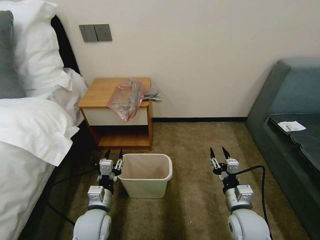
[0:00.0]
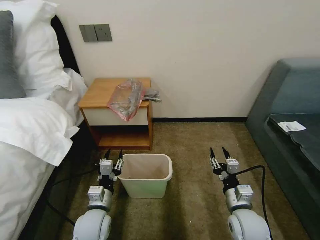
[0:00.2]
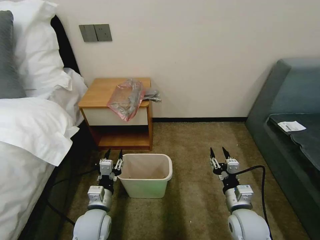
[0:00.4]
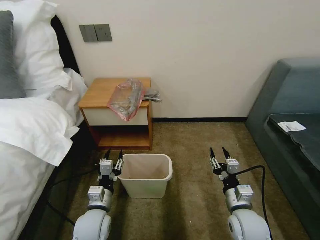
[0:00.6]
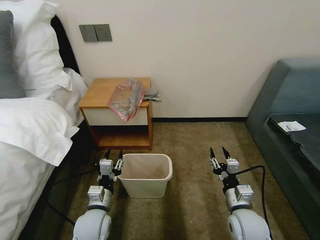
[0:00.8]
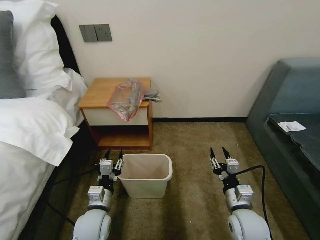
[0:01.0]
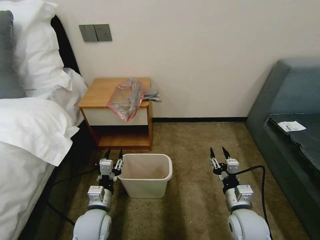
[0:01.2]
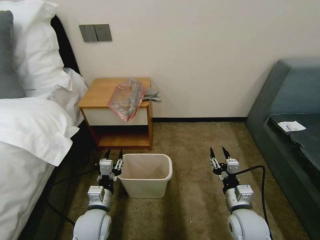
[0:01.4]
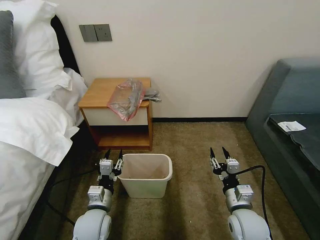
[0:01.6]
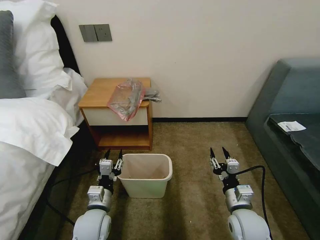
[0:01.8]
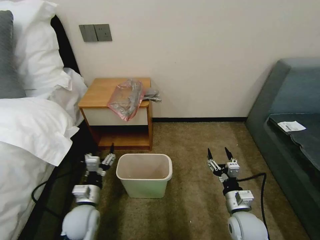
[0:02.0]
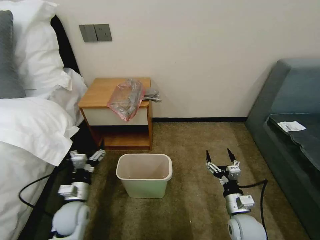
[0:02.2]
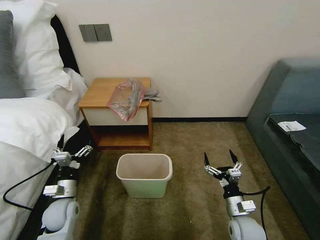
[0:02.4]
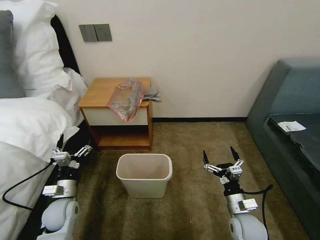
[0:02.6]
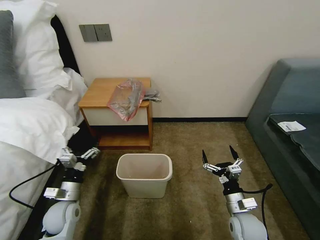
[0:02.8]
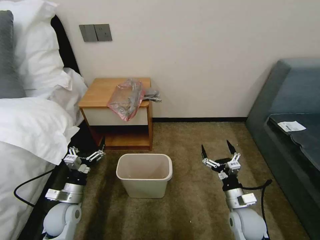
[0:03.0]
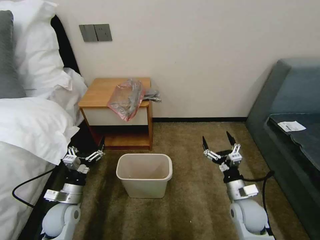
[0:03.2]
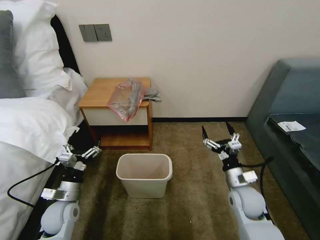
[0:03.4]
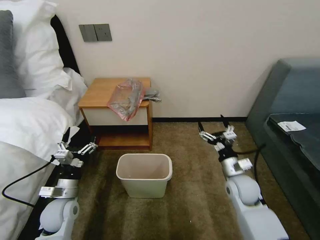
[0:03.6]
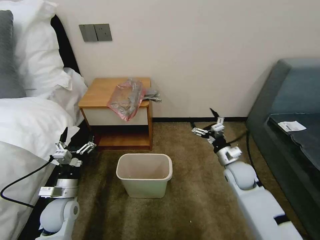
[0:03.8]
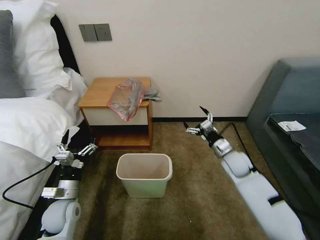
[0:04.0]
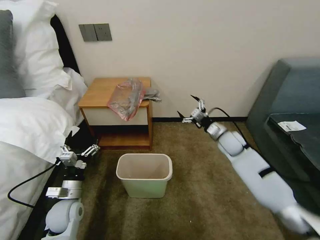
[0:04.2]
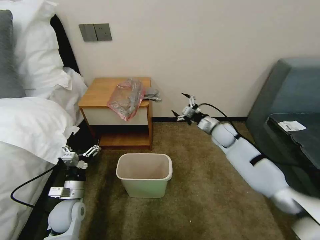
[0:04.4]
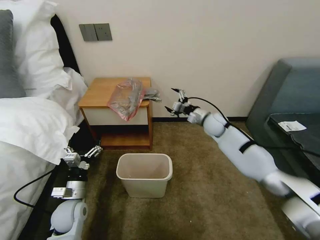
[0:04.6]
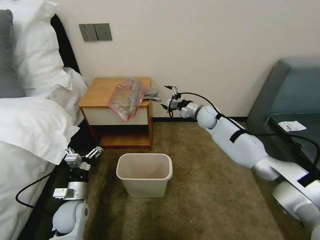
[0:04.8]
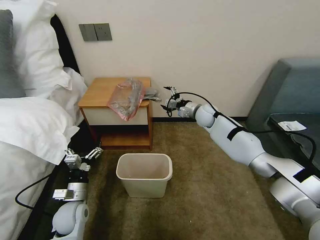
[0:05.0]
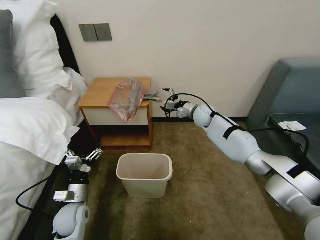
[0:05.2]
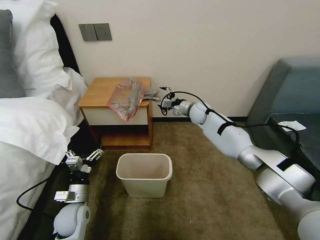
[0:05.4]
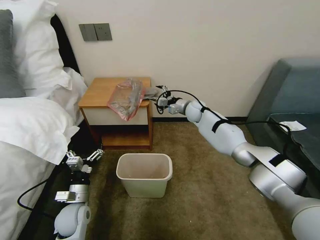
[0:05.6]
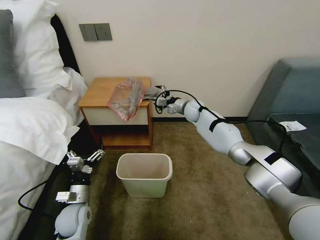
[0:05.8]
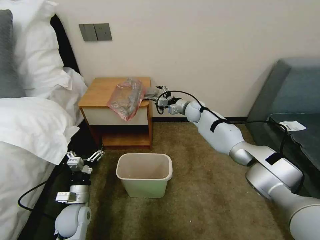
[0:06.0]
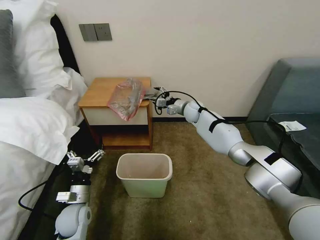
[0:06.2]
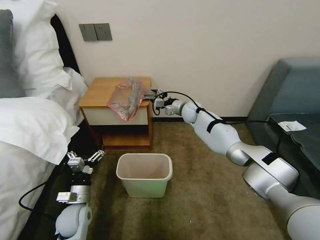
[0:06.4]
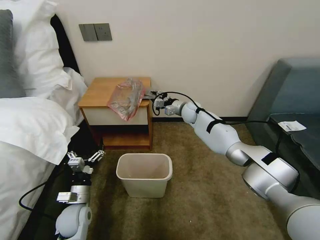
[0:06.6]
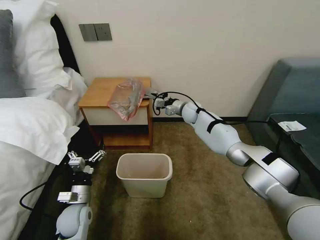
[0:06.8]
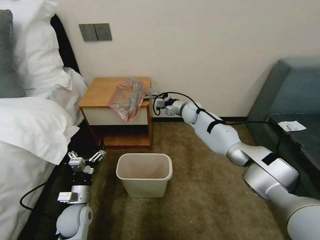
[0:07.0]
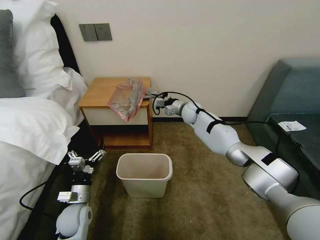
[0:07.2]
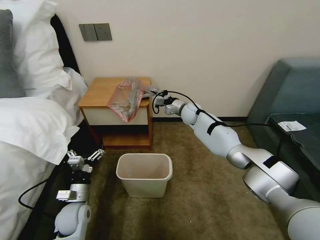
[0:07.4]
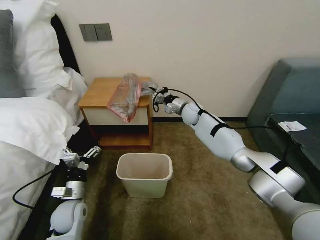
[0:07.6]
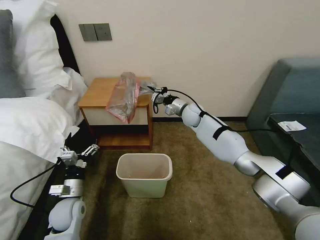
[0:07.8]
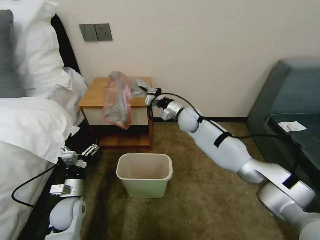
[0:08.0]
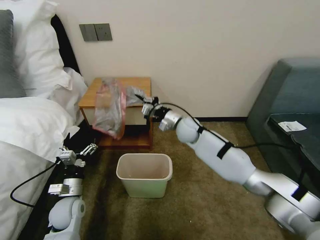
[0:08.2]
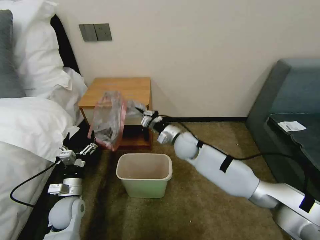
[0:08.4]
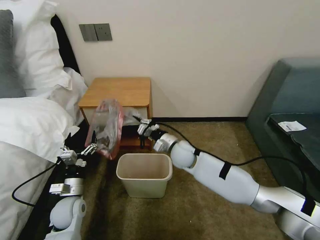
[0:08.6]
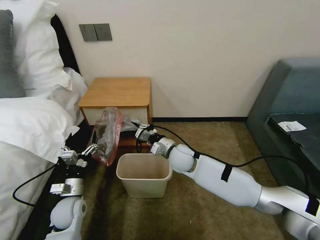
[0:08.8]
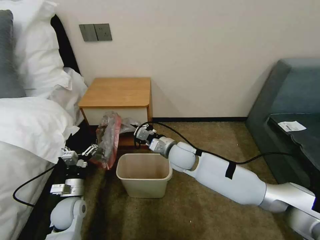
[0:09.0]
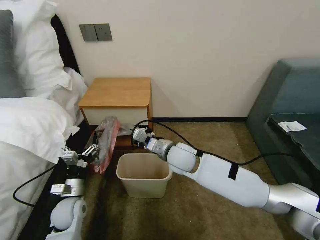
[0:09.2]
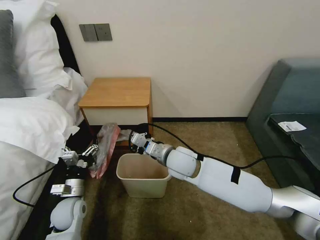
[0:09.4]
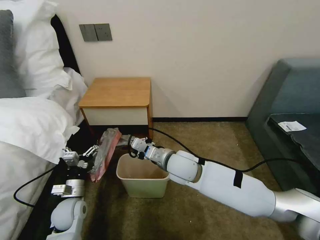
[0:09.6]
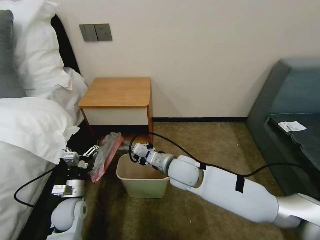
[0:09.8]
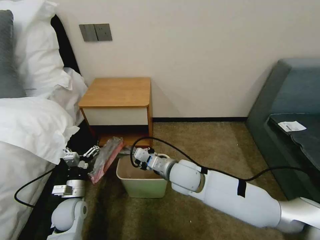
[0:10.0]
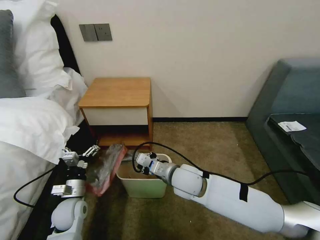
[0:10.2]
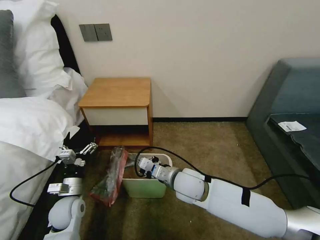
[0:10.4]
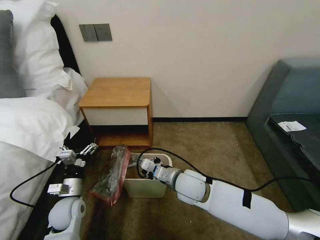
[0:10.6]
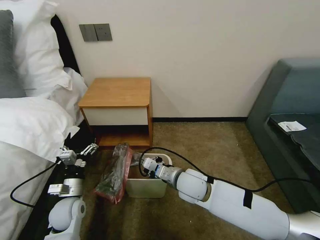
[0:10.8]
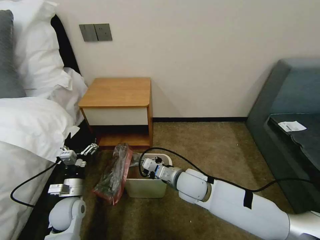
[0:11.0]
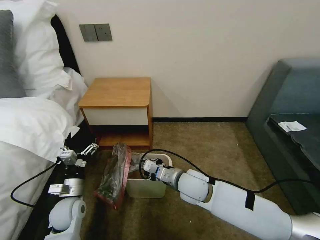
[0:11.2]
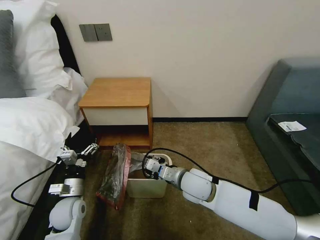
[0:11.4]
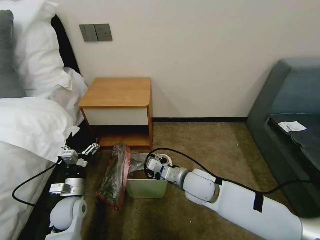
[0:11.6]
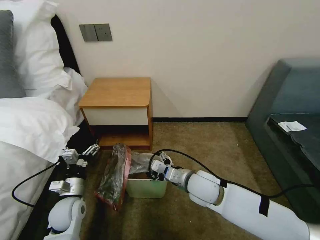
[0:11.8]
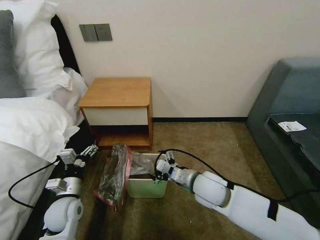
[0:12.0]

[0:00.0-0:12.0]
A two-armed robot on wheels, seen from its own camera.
Task of the whole recording: Pick up the garbage bag from the table and place it over the trash can.
0:01.6 to 0:03.0: The left gripper travels to the left by approximately 10 cm, and opens. Meanwhile the right gripper shifts by approximately 5 cm, and opens its fingers.
0:03.0 to 0:04.4: The right gripper moves forward, about 30 cm.
0:04.4 to 0:06.0: The right gripper heads forward and to the left, covering some 15 cm.
0:06.0 to 0:07.6: The right gripper closes its fingers.
0:07.6 to 0:09.0: The right gripper travels backward by about 20 cm.
0:09.0 to 0:10.4: The right gripper shifts roughly 10 cm backward.
0:10.4 to 0:12.0: The right gripper shifts about 5 cm to the right, and opens.

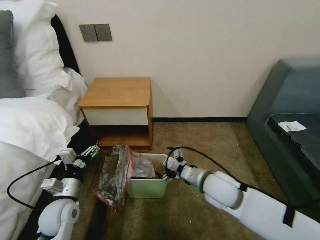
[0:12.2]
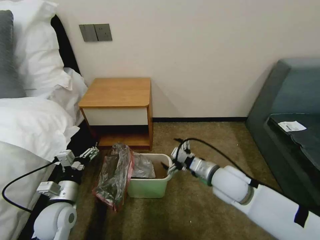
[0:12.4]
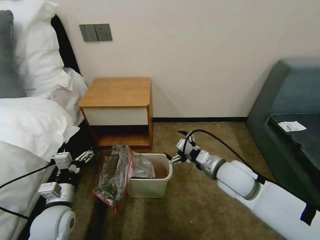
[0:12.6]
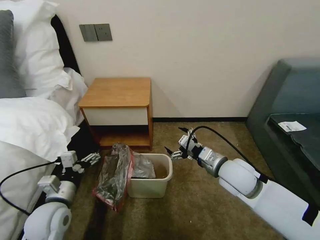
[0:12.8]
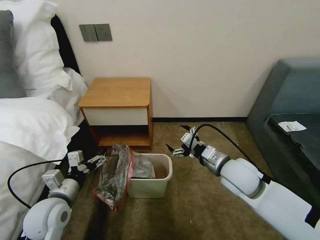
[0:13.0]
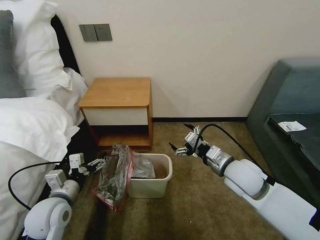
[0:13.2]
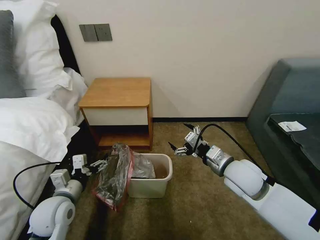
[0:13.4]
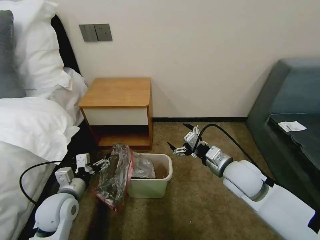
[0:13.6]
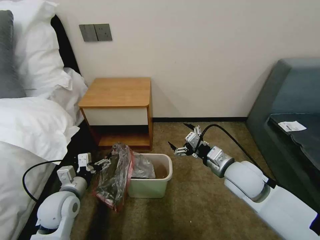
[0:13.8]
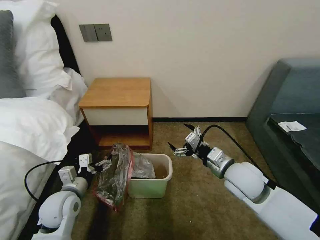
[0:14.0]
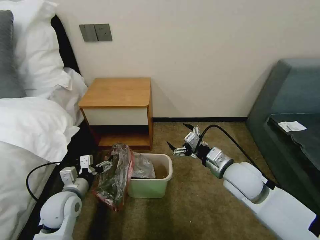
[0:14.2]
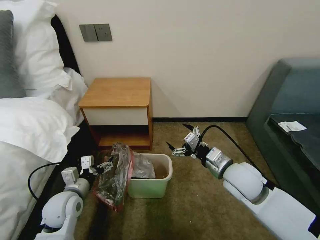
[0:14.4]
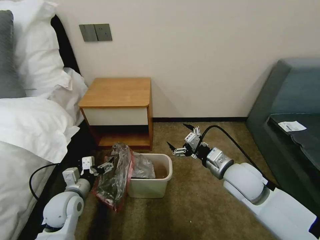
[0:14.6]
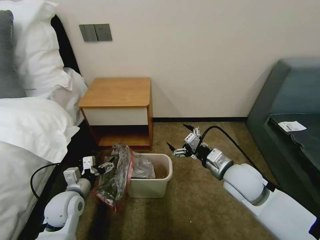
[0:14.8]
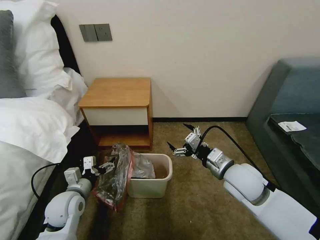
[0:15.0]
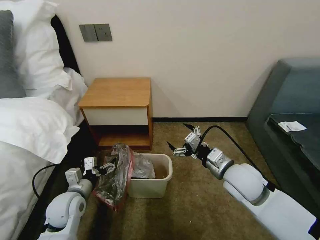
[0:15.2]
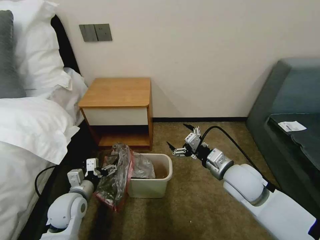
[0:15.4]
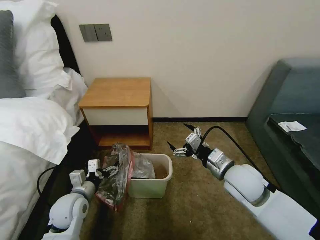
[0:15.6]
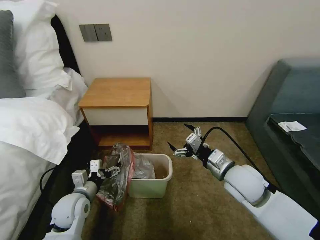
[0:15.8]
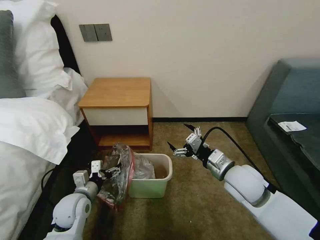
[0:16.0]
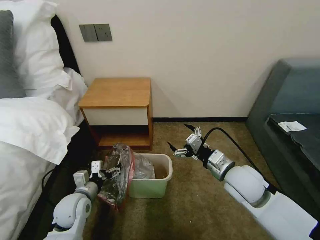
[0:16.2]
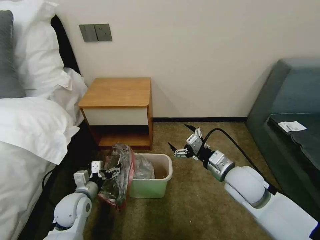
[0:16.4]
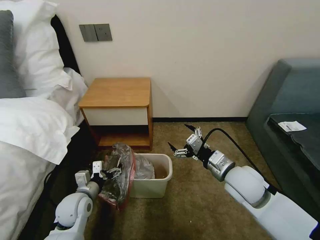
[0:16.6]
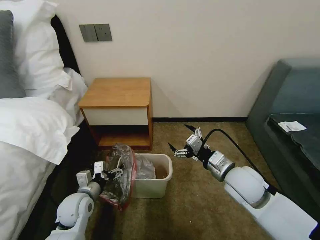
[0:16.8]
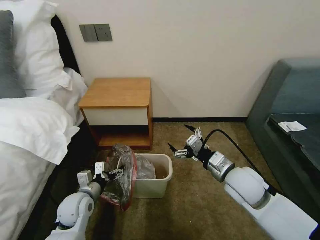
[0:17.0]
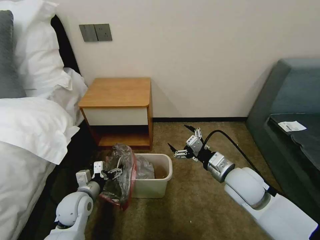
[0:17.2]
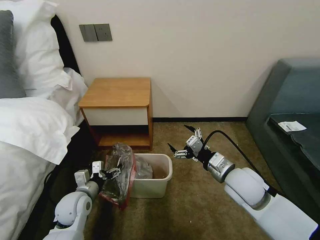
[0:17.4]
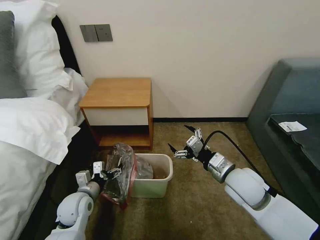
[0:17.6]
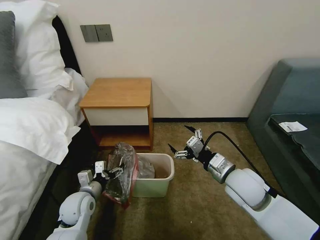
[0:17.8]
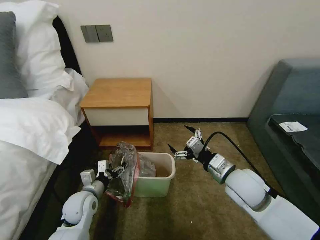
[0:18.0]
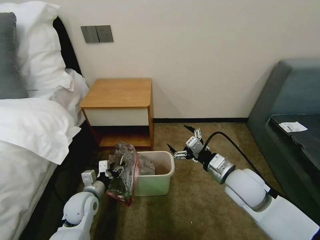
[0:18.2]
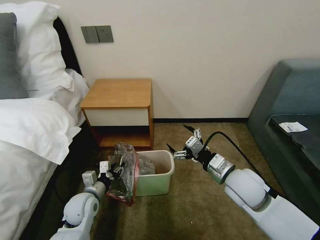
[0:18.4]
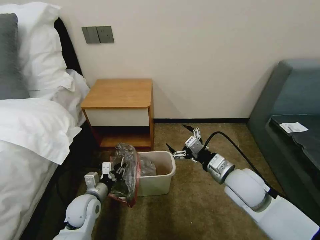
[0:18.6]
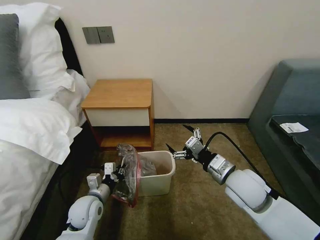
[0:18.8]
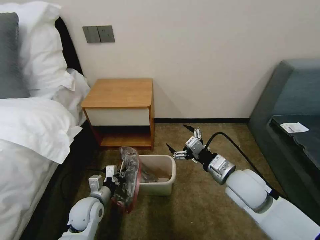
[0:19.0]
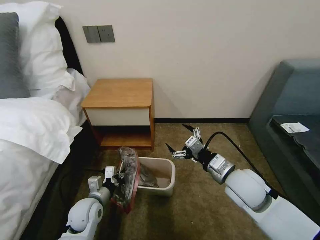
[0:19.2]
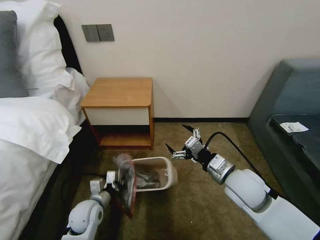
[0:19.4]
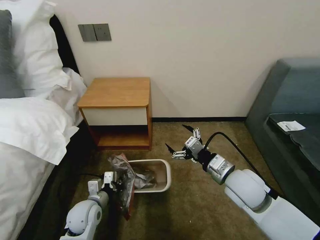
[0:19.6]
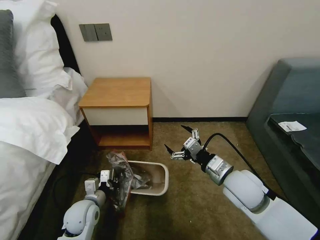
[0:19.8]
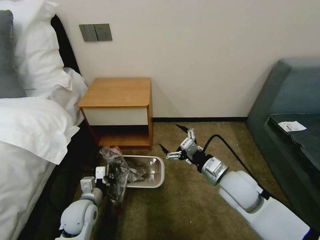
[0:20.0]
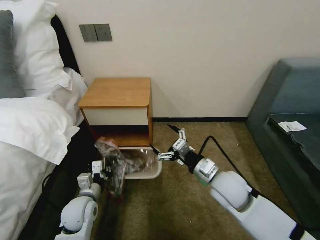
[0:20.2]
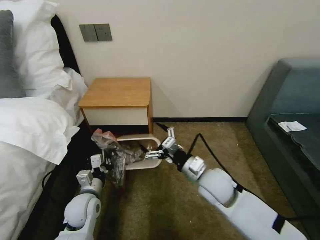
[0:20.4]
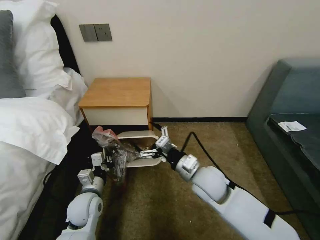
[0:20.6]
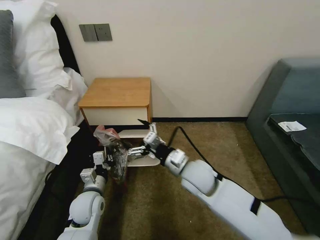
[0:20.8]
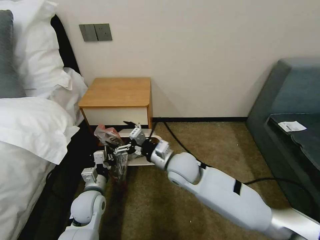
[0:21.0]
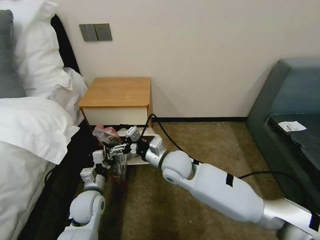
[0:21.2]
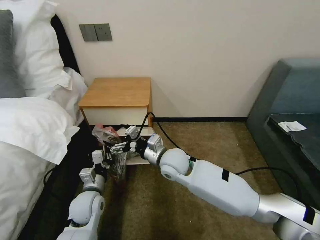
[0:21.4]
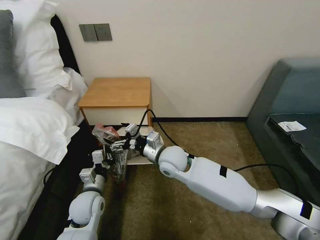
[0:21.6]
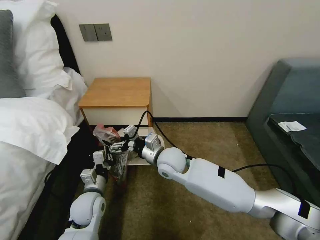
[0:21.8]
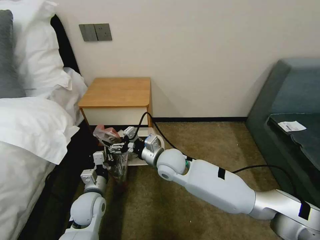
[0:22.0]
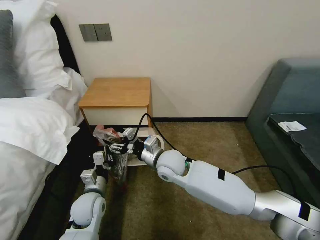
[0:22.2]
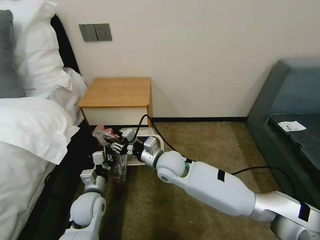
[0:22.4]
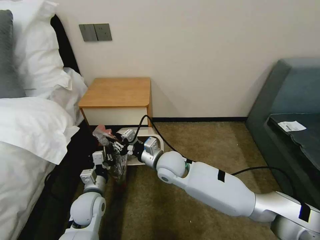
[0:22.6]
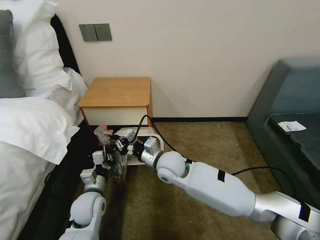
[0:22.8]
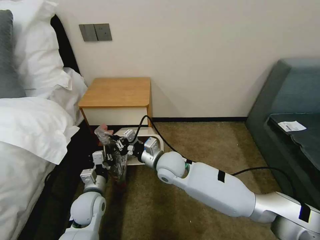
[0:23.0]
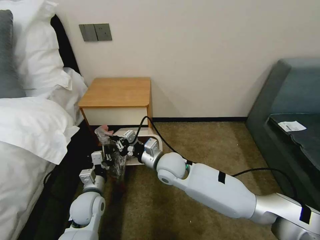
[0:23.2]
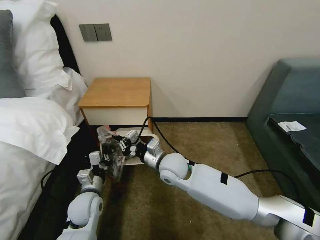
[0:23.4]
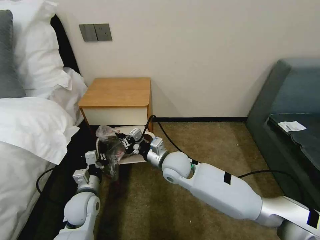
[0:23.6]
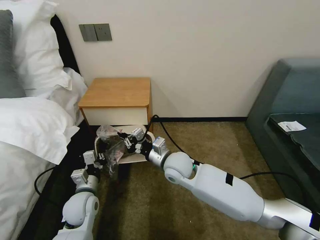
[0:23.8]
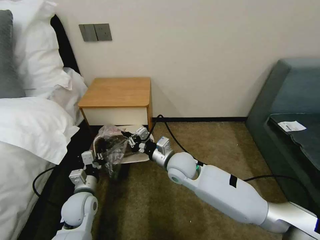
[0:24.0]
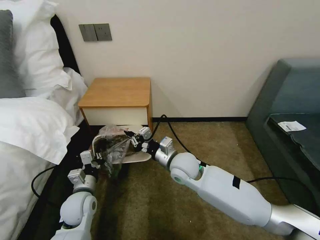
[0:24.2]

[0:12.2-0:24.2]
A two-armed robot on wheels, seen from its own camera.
Task of the whole recording: Pick up the garbage bag from the table and place it over the trash can.
0:12.2 to 0:13.8: The right gripper moves to the right, roughly 5 cm.
0:13.8 to 0:16.6: There are only small adjustments of the grippers.
0:16.6 to 0:18.2: The left gripper closes its fingers.
0:18.2 to 0:19.8: The left gripper closes its fingers.
0:19.8 to 0:21.2: The right gripper moves to the left and forward, some 20 cm.
0:21.2 to 0:22.6: The right gripper closes up.
0:22.6 to 0:24.2: The grippers stay close to where they were, moving slightly.
